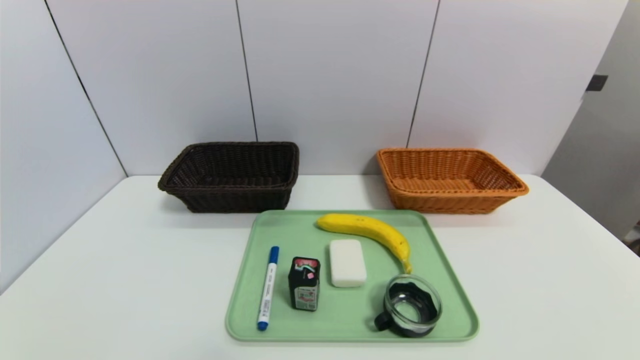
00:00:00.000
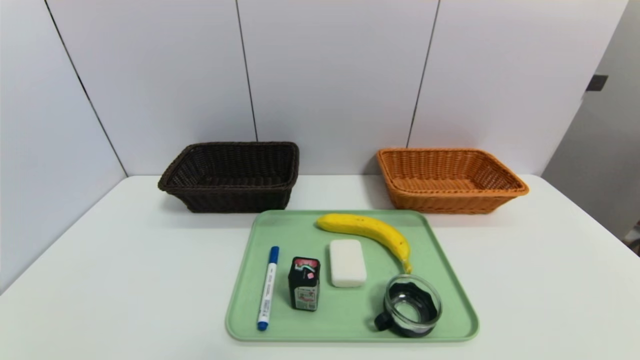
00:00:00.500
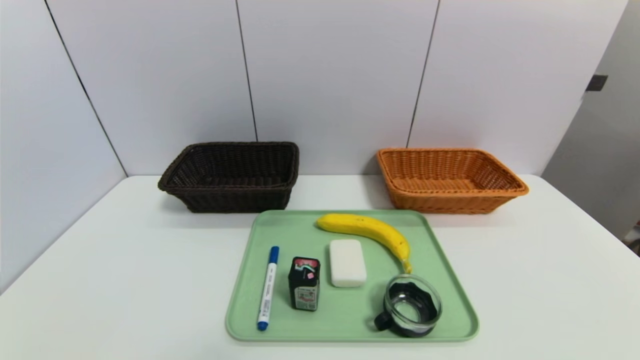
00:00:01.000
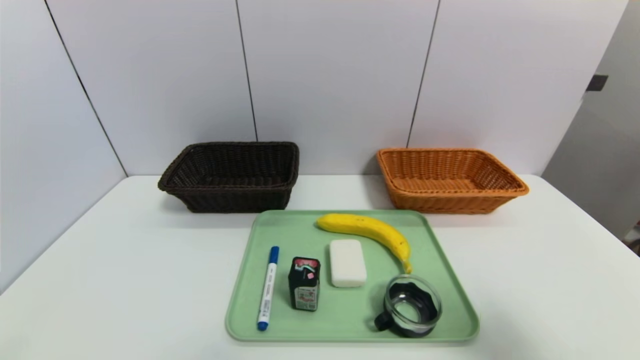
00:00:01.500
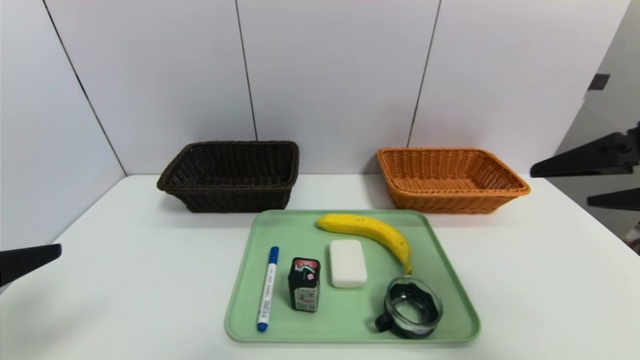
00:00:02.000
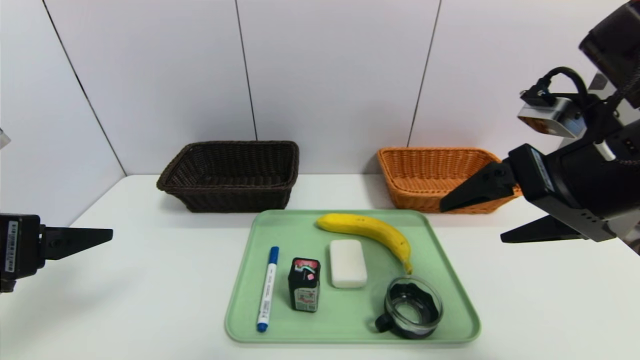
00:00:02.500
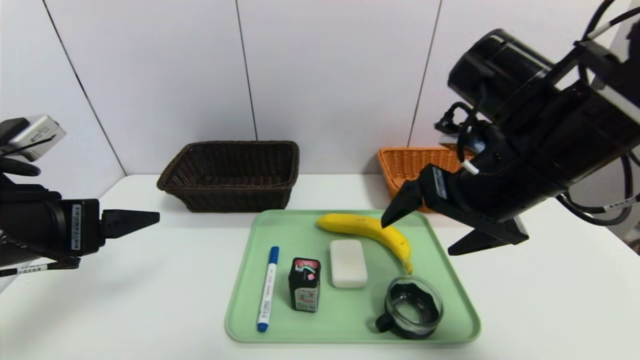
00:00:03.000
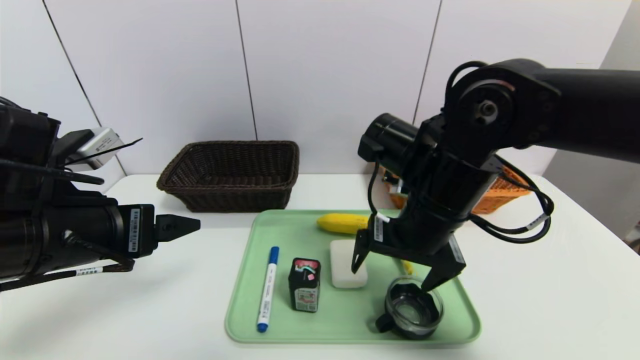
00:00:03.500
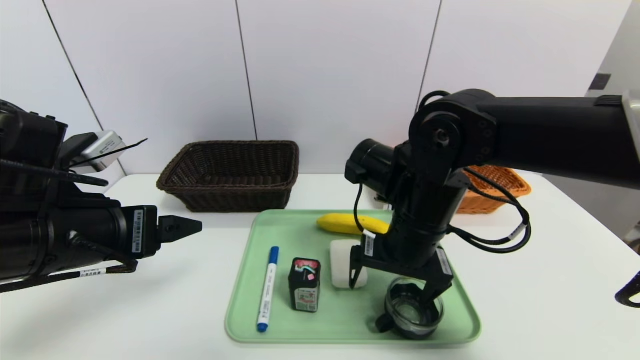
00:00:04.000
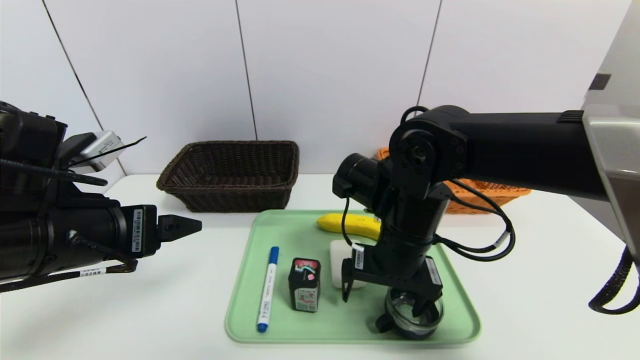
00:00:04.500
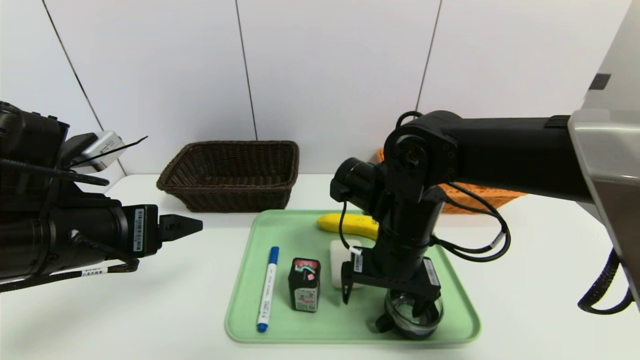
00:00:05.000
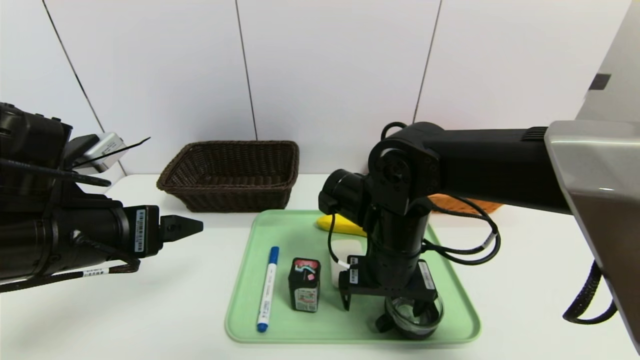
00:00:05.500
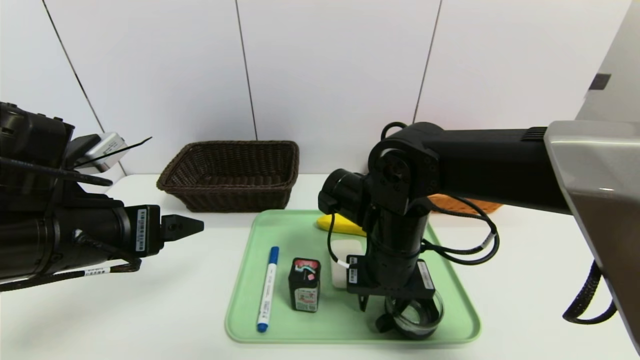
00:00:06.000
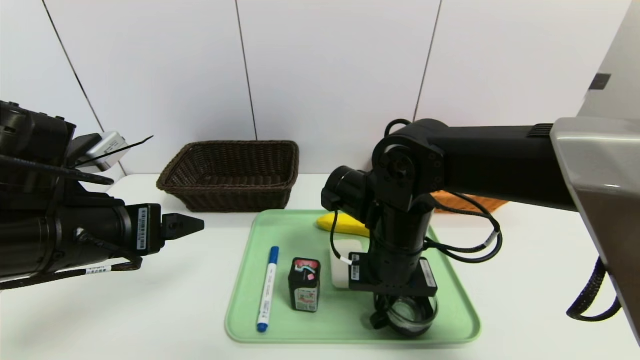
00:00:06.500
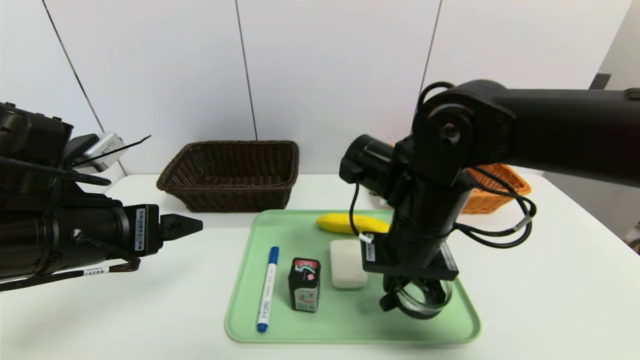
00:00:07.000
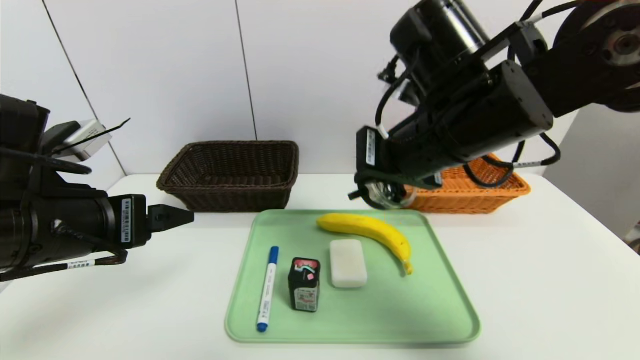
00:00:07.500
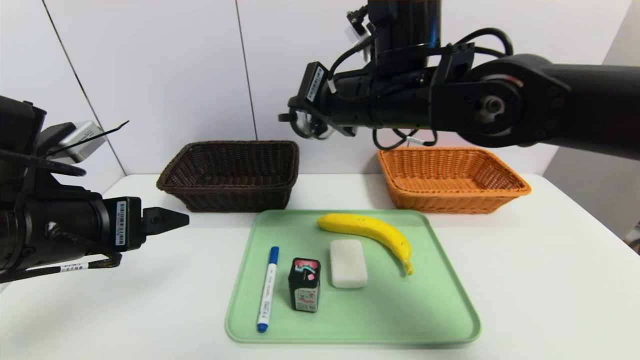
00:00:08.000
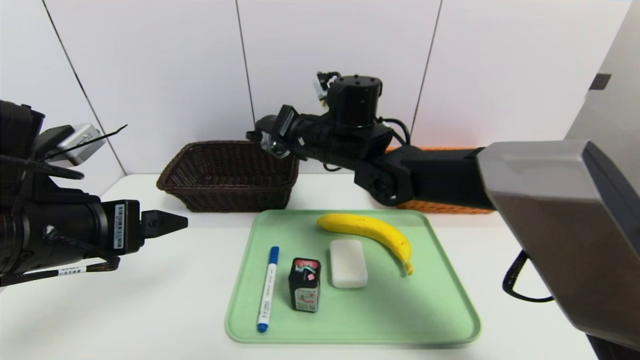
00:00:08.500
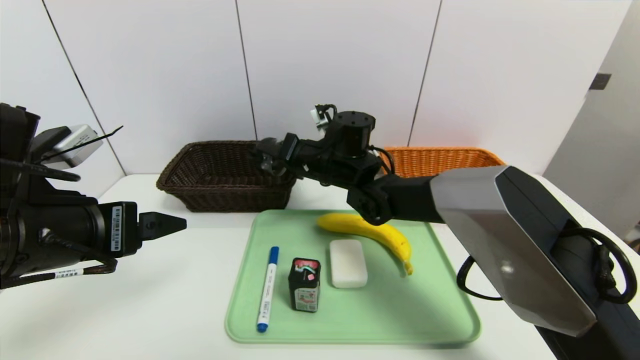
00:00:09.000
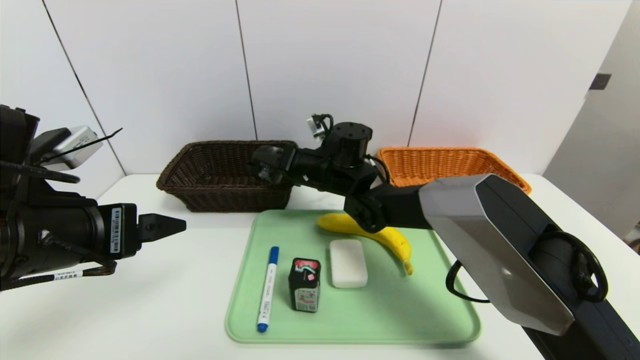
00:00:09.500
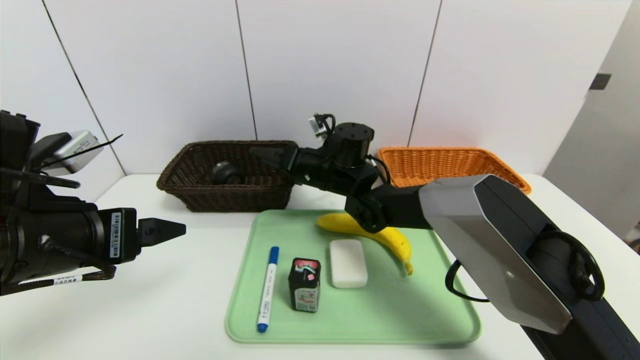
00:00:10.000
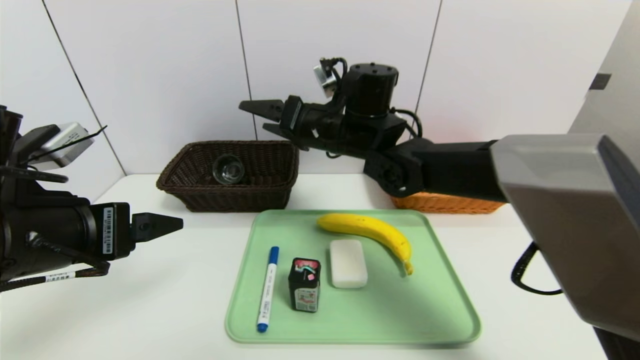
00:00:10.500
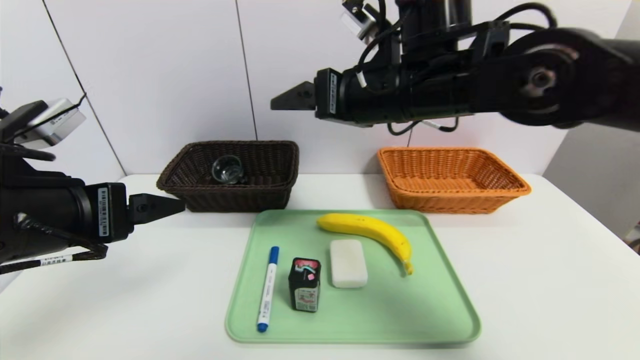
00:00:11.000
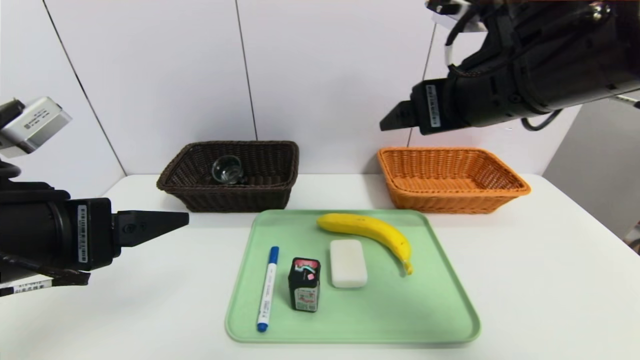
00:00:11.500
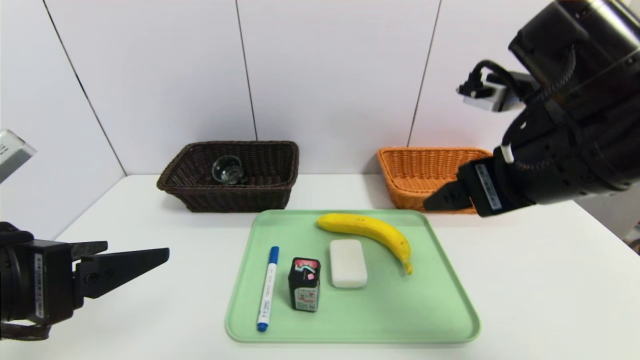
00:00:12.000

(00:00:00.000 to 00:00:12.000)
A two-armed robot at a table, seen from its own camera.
Task of the whole recording: place the food in the right basket with the right gripper, and place the non food items in the left basket with the left gripper.
Step, 00:00:00.000 - 00:00:09.500: Grasp the tea cup and put it in the left basket.
00:00:00.000 - 00:00:02.000: The grippers both shift upward and forward by roughly 25 cm.
00:00:02.000 - 00:00:04.000: The right gripper heads to the left, downward and forward, covering about 25 cm. The left gripper travels forward and to the right by roughly 10 cm.
00:00:04.000 - 00:00:06.000: The right gripper closes its fingers.
00:00:06.000 - 00:00:08.000: The right gripper is displaced upward by about 15 cm, and closes.
00:00:08.000 - 00:00:10.000: The right gripper is displaced downward and forward by approximately 20 cm, and opens its fingers.
00:00:10.000 - 00:00:12.000: The left gripper moves backward, roughly 5 cm; the right gripper goes roughly 30 cm backward, to the right and upward, and opens up.

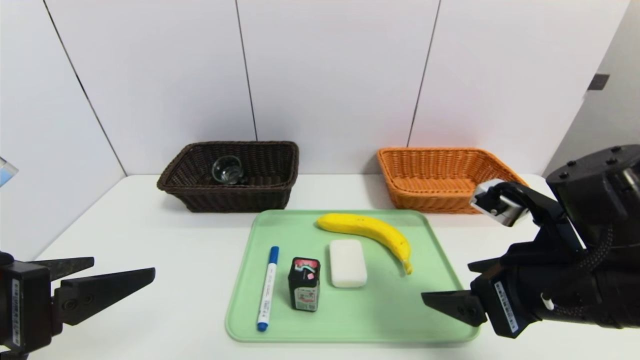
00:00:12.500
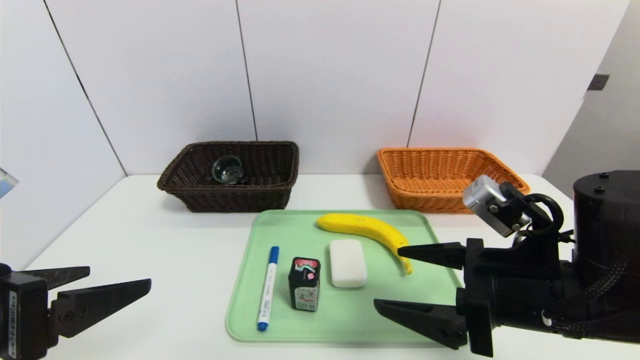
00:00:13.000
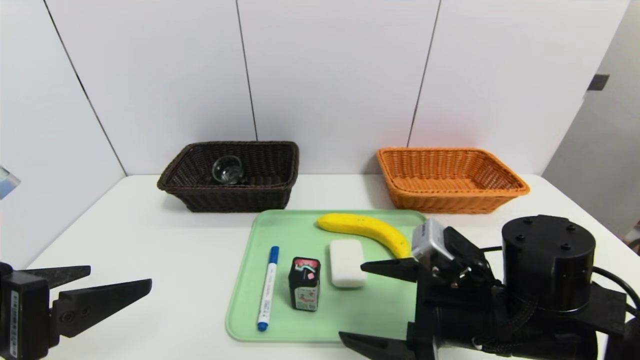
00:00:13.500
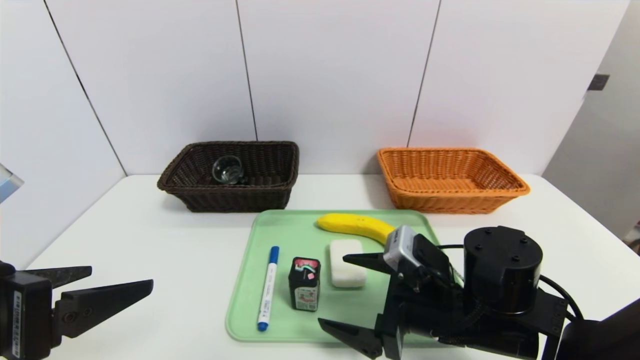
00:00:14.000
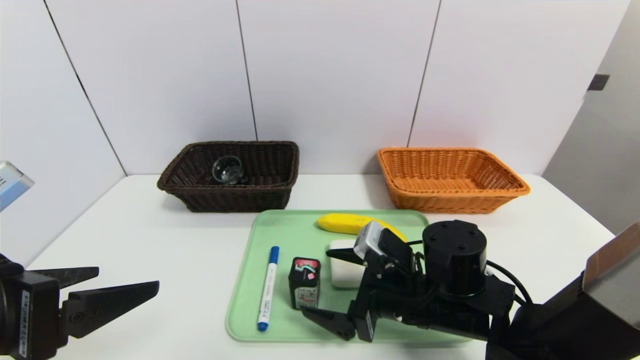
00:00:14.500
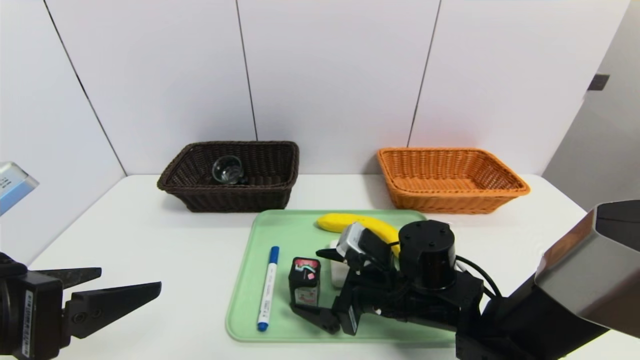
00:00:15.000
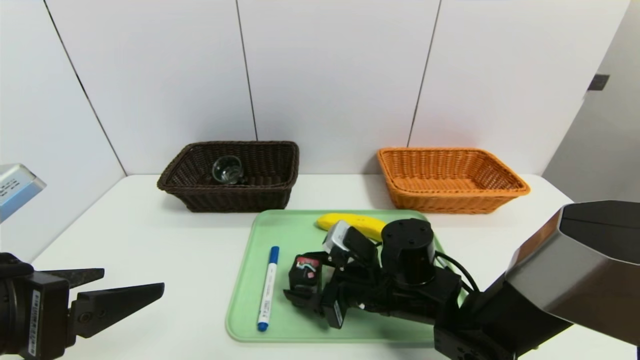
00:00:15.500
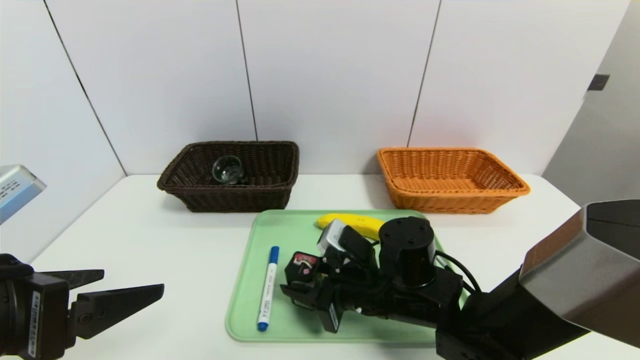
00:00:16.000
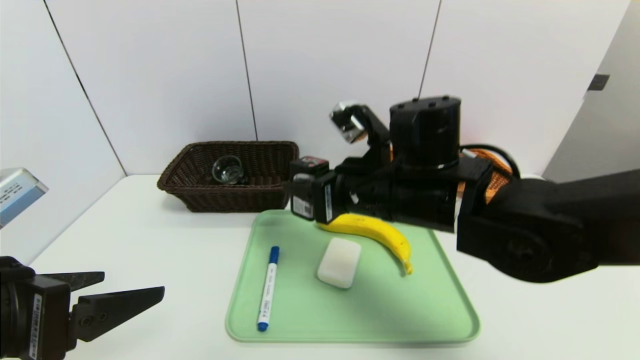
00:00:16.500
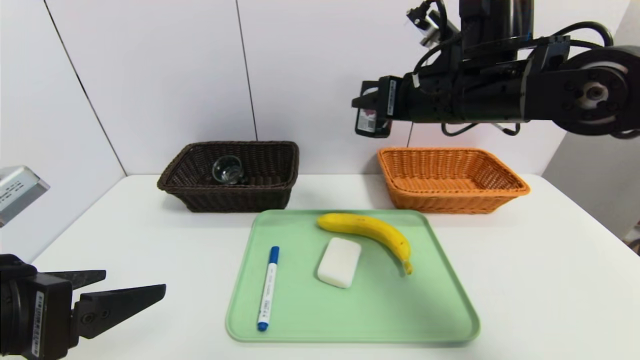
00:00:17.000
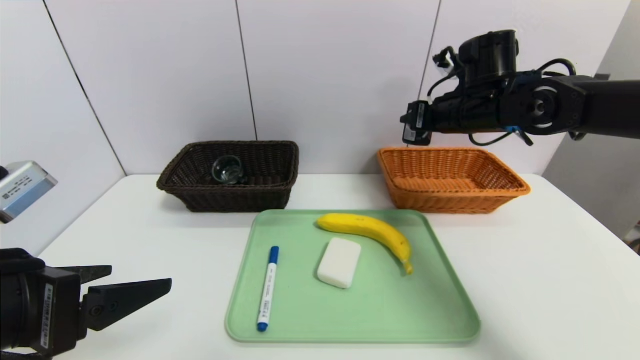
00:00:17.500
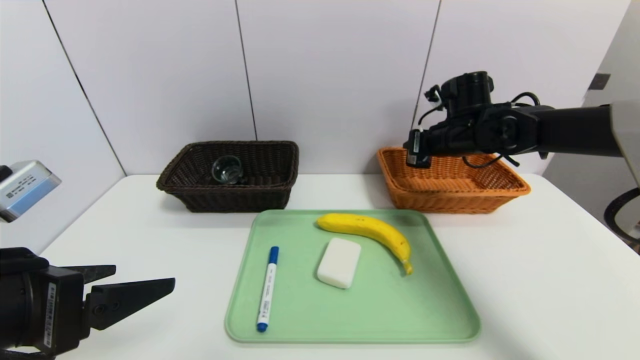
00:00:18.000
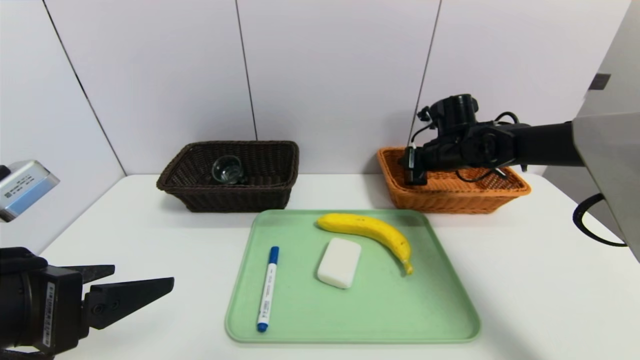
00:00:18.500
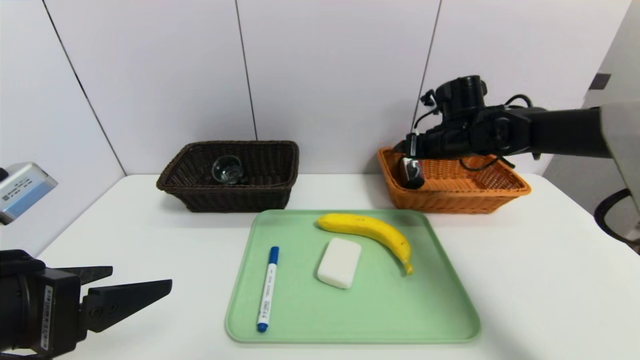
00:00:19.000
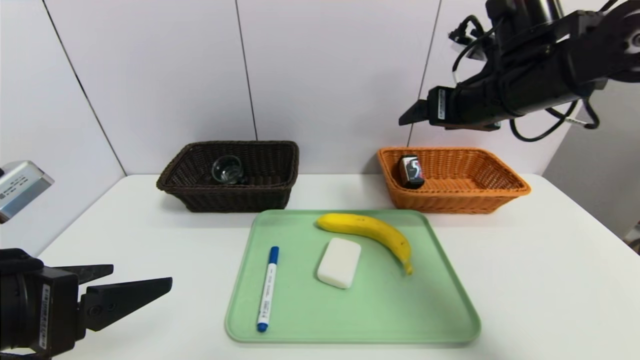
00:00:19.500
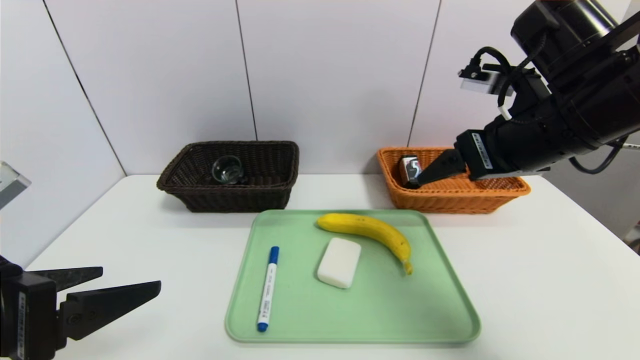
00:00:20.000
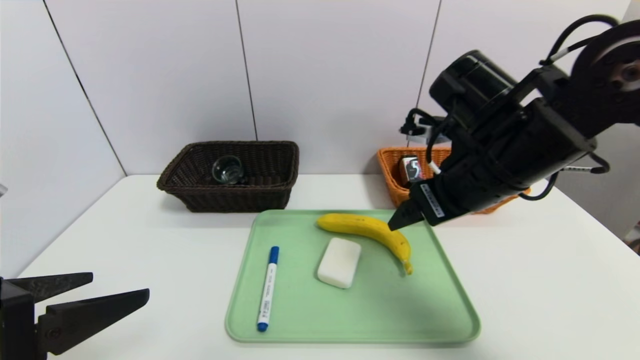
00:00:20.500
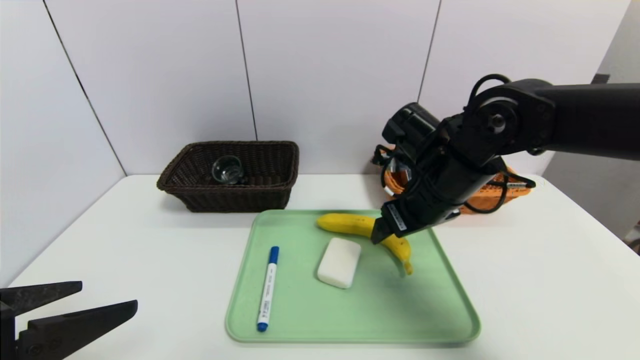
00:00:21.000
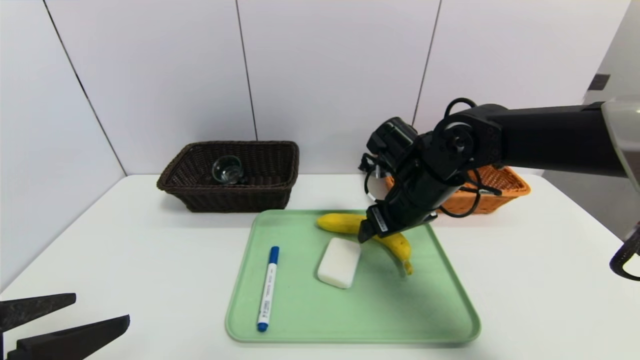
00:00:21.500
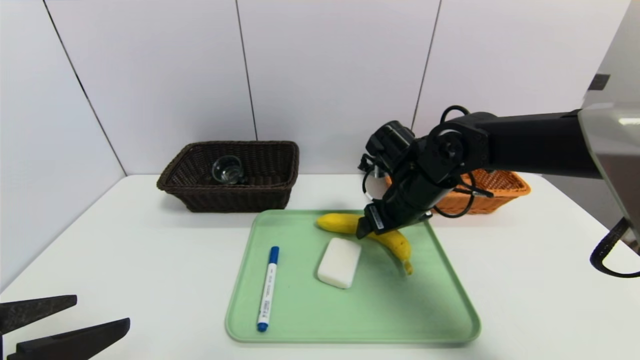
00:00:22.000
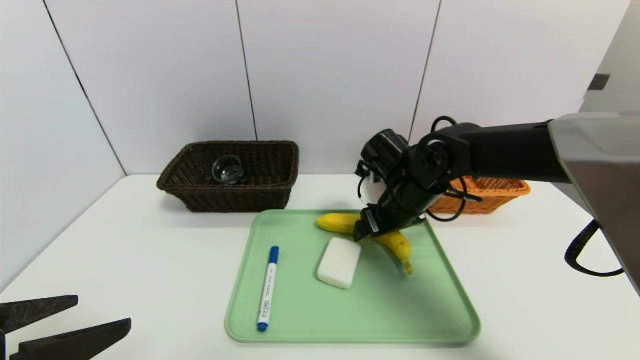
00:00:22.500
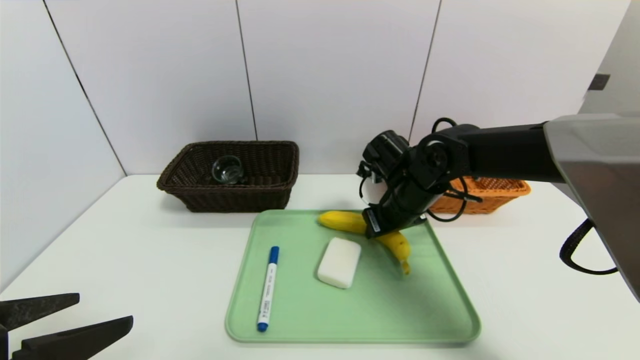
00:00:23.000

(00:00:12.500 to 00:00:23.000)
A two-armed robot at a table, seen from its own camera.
Task of the whole recording: place the food in the right basket with the right gripper, and place the non food items in the left basket with the left gripper.
Step, 00:00:12.500 - 00:00:19.000: Grasp the square chewing gum and put it in the right basket.
00:00:12.500 - 00:00:14.500: The right gripper shifts about 15 cm downward, to the left and forward.
00:00:14.500 - 00:00:16.500: The right gripper is displaced upward by some 15 cm, and closes up.
00:00:16.500 - 00:00:19.000: The right gripper heads forward and to the right, covering roughly 20 cm, and opens up.
00:00:19.000 - 00:00:21.000: The right gripper goes approximately 15 cm backward and to the left.
00:00:21.000 - 00:00:23.000: The right gripper heads downward and forward, covering approximately 5 cm, and closes up.
